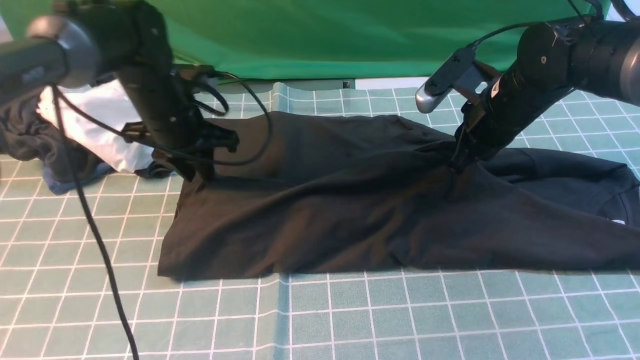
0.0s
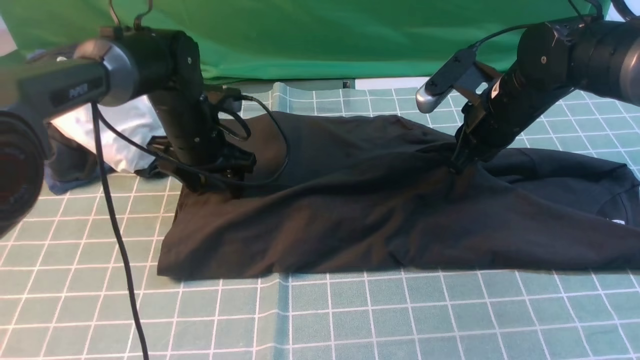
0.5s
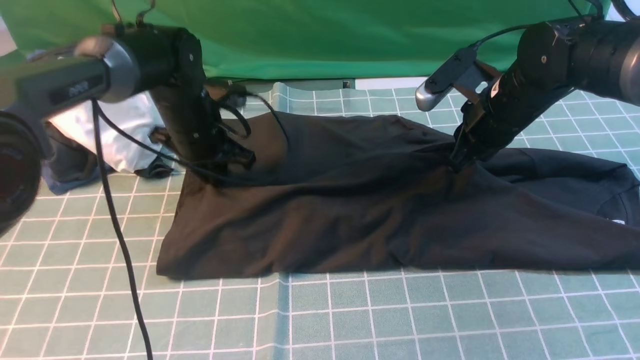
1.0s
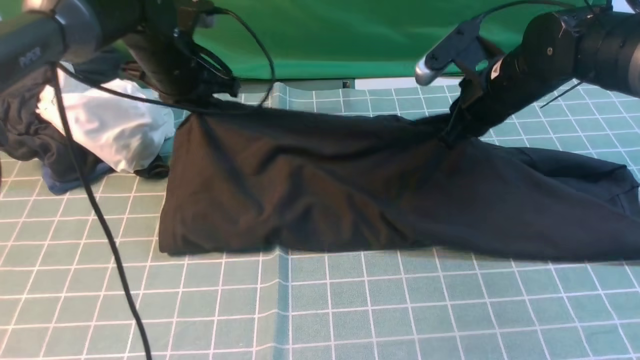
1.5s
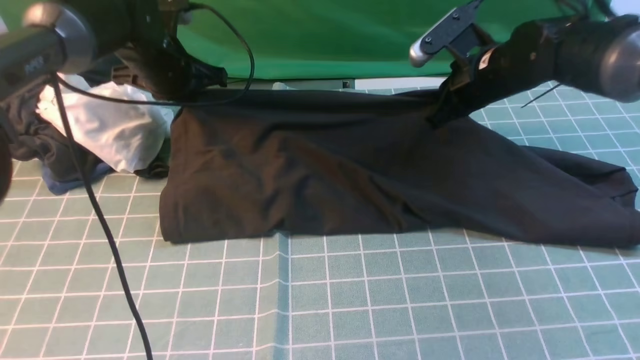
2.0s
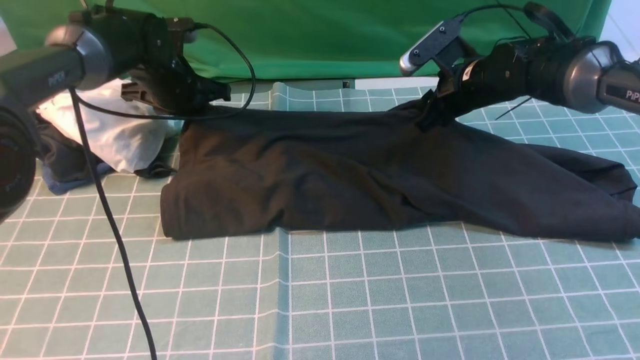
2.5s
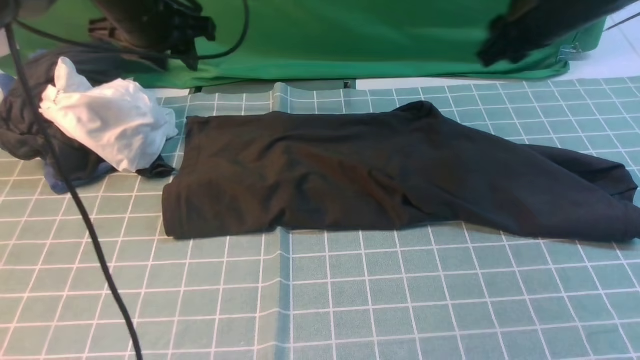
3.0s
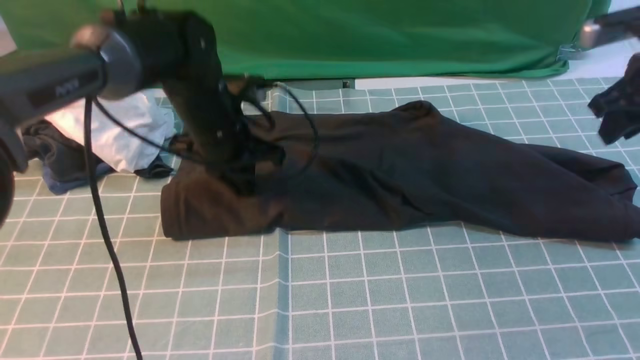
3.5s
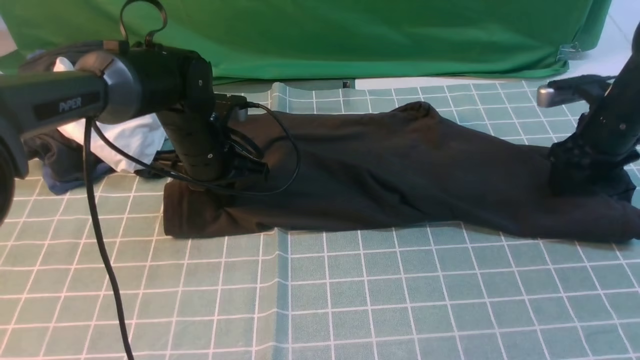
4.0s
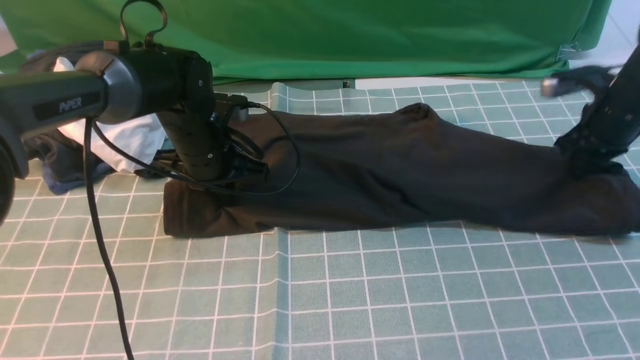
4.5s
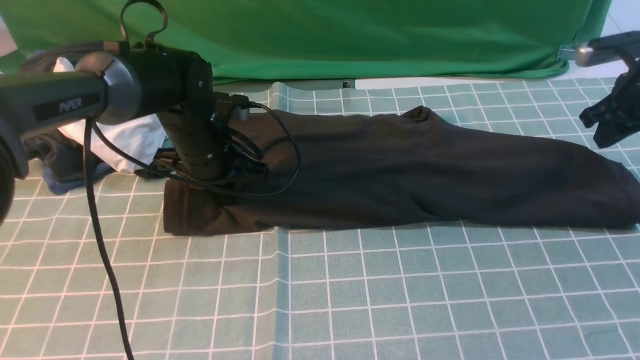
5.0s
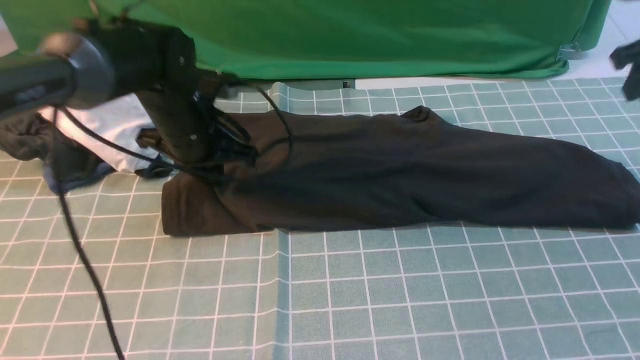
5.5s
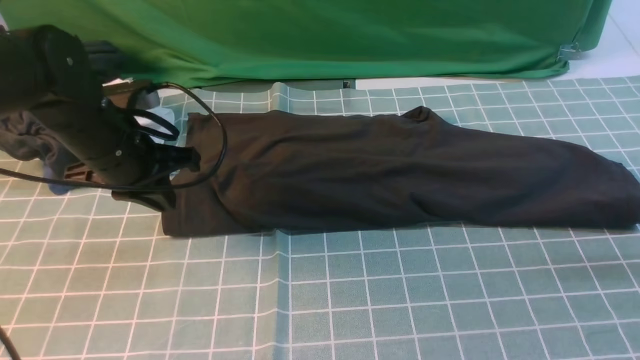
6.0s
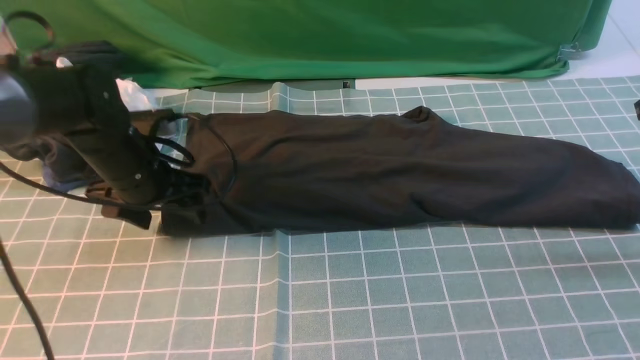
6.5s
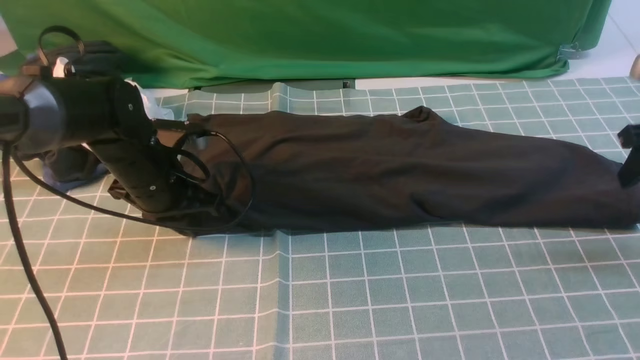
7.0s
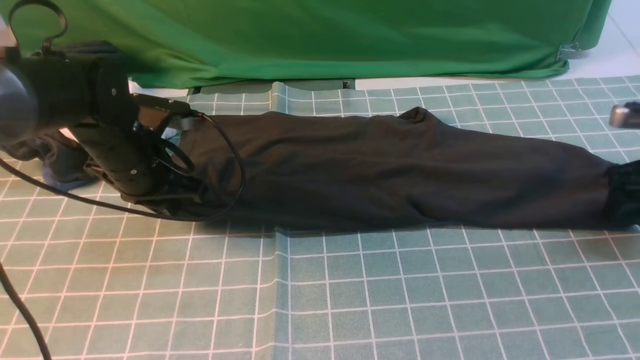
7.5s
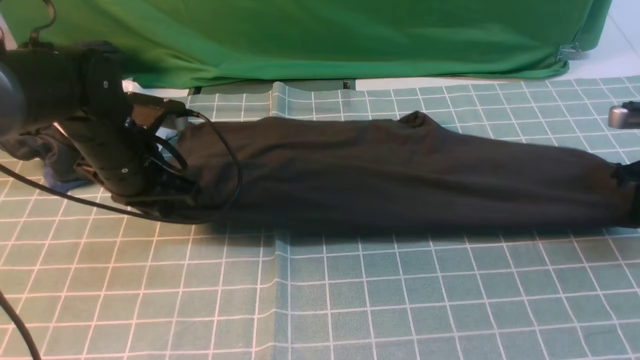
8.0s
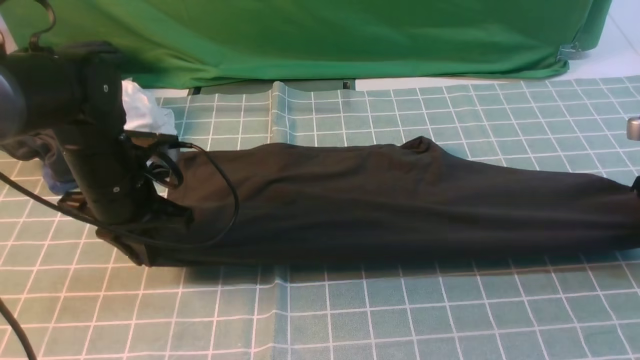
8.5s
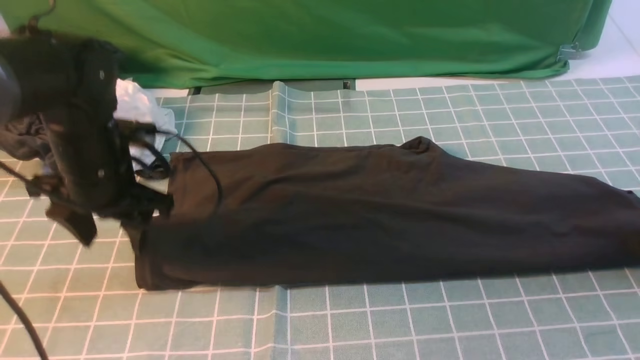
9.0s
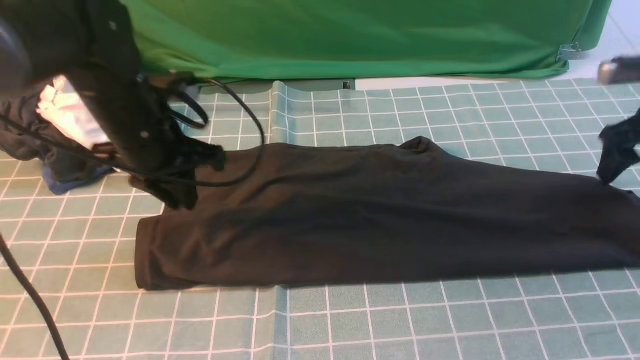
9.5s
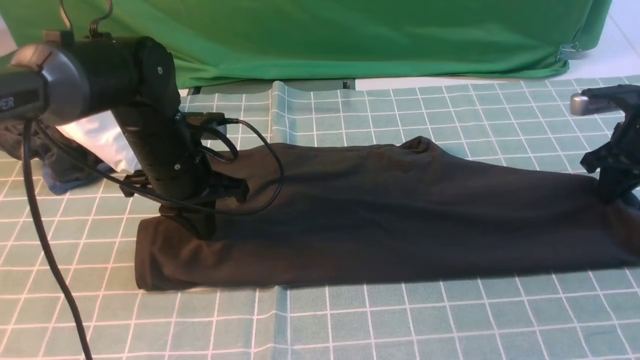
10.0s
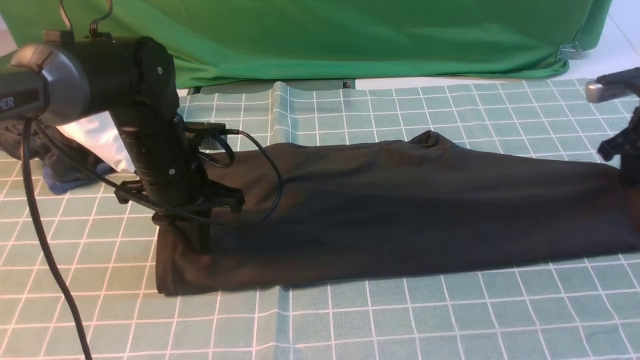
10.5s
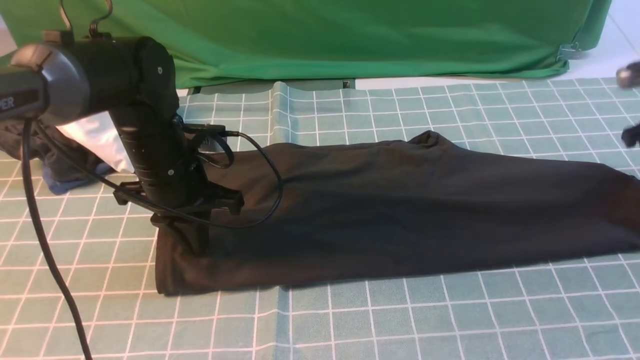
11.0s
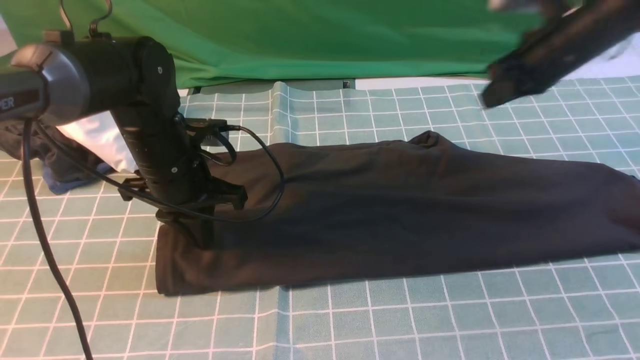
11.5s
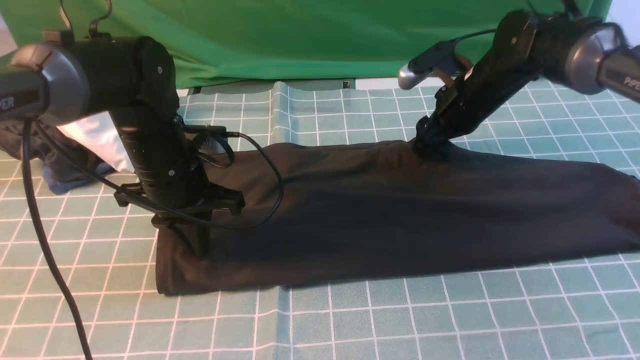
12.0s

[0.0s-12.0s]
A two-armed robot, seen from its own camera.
Step, 0.0s to 3.0s: use both arms to drag the lower edge of the fabric forward and fold it over the upper edge.
0.0s to 2.0s: The grippers both shift forward by approximately 5 cm. The left gripper closes its fingers.
2.0s to 4.0s: The right gripper is displaced to the right by approximately 15 cm, and opens its fingers; the left gripper travels backward and to the right by roughly 10 cm, and opens, then closes again.
4.0s to 6.0s: The right gripper goes about 15 cm upward and backward, and closes its fingers; the left gripper moves backward, to the left and upward, some 10 cm.
6.0s to 8.0s: The right gripper heads downward, covering some 10 cm, and opens and closes again; the left gripper opens, then closes once more.
8.0s to 10.0s: The left gripper opens and closes again. Meanwhile the right gripper changes place by about 5 cm, and opens, then closes again.
10.0s to 12.0s: The right gripper goes roughly 20 cm to the left, and opens up.

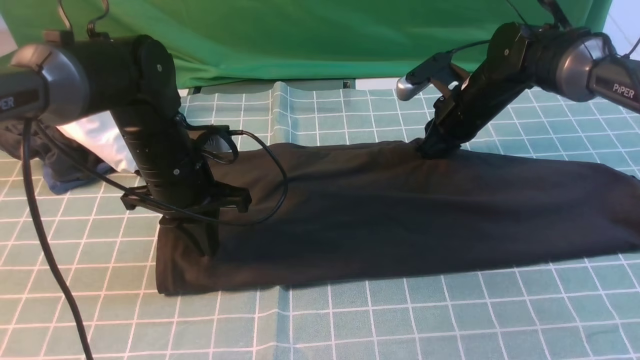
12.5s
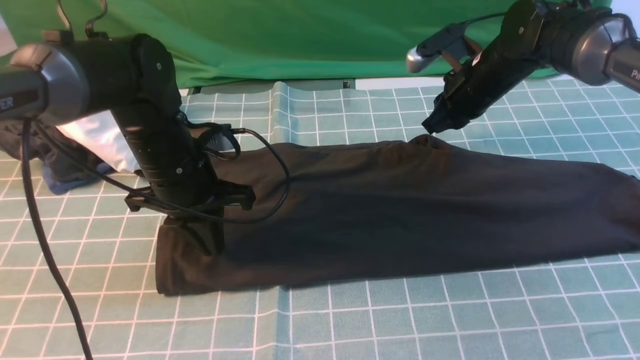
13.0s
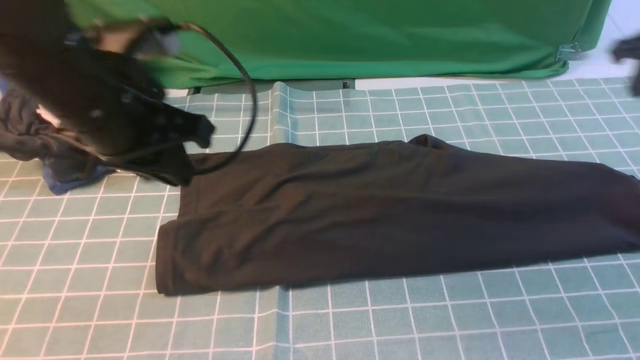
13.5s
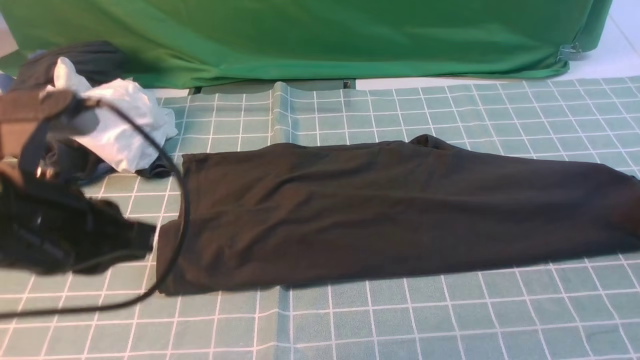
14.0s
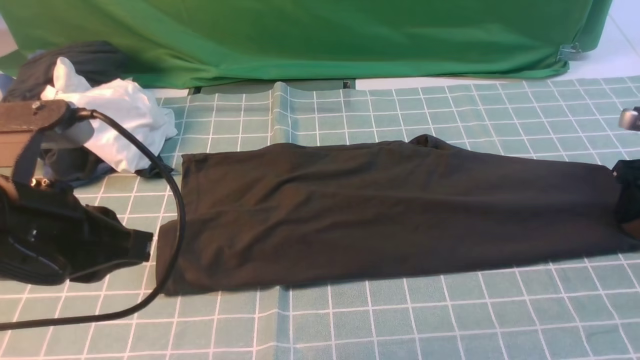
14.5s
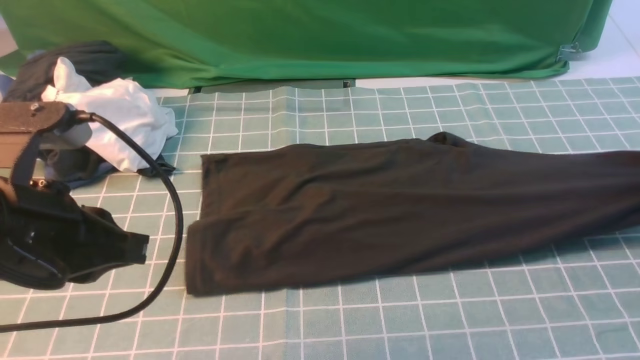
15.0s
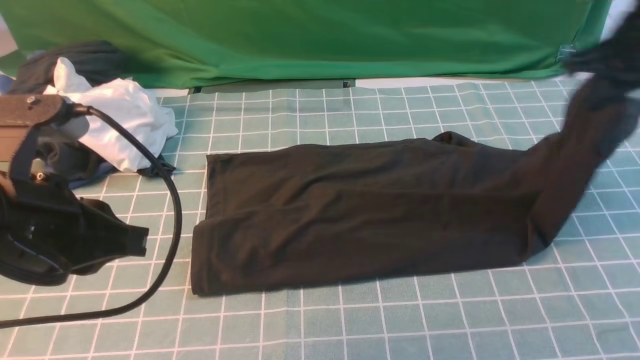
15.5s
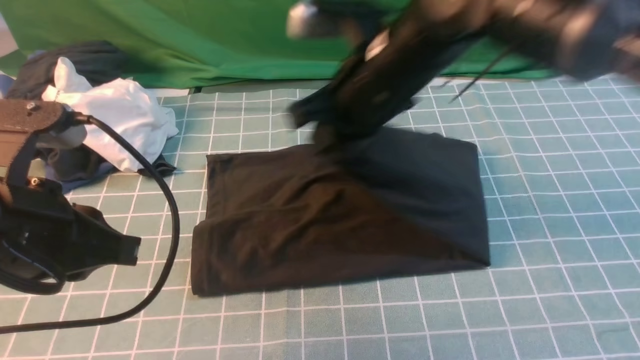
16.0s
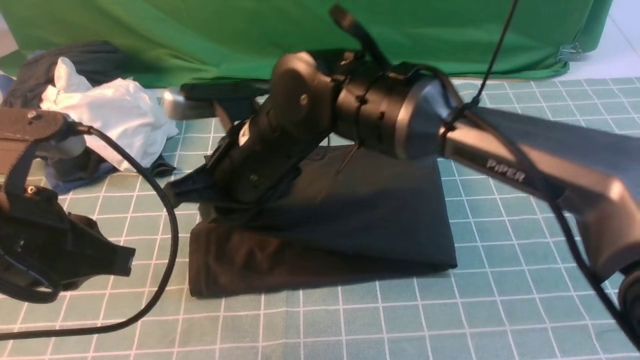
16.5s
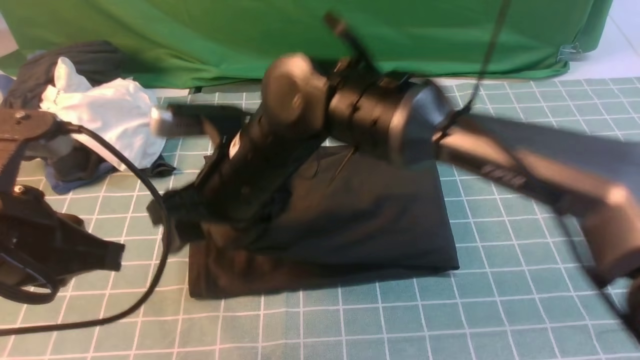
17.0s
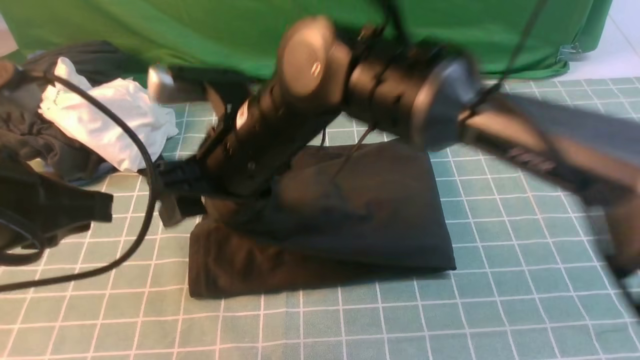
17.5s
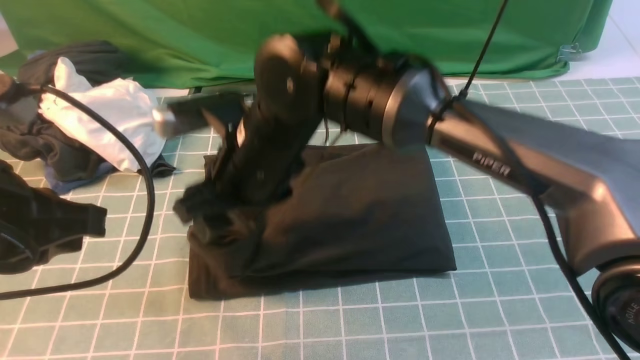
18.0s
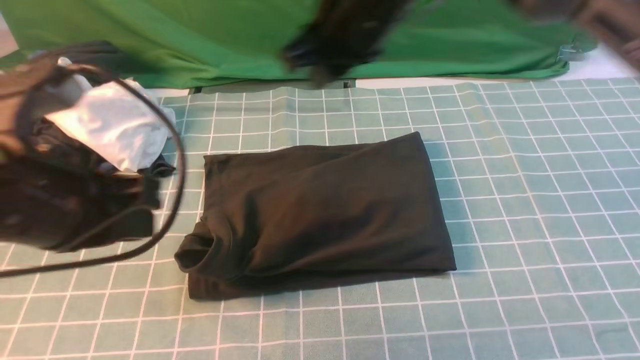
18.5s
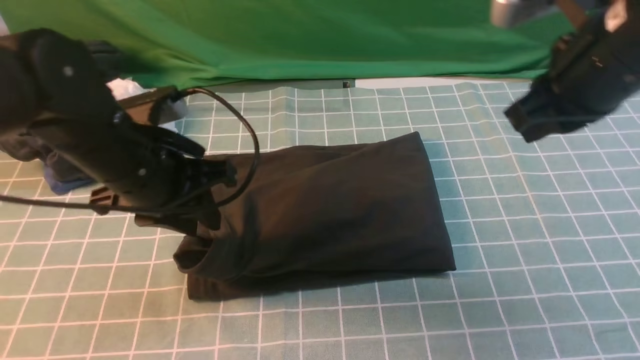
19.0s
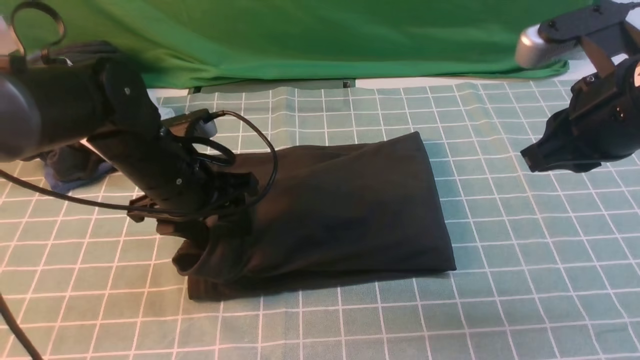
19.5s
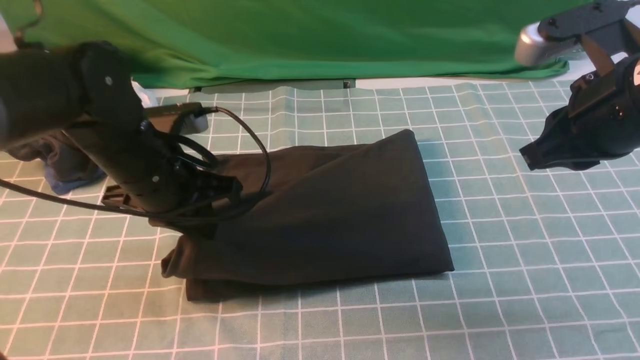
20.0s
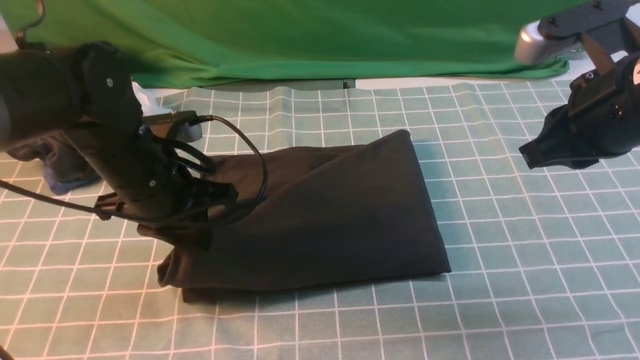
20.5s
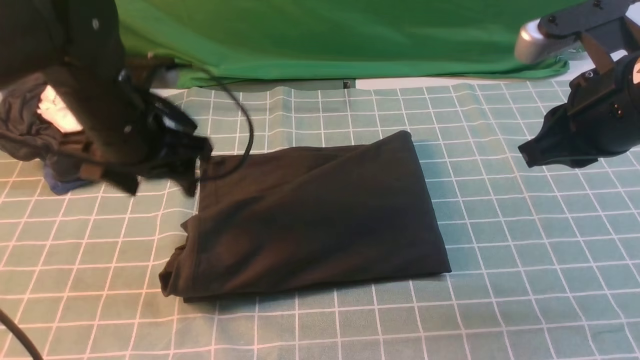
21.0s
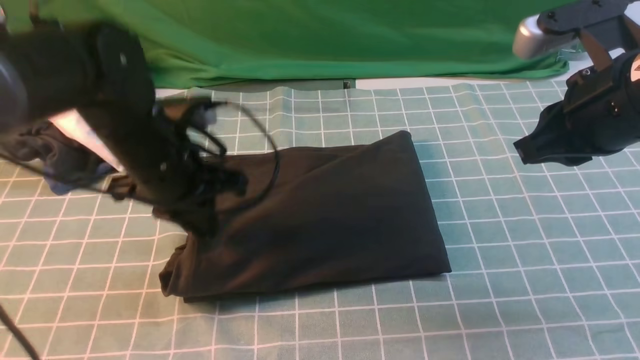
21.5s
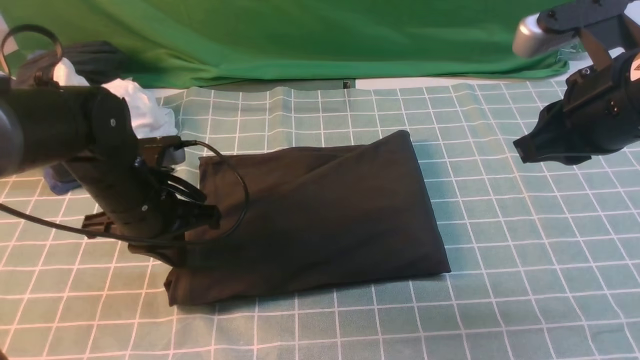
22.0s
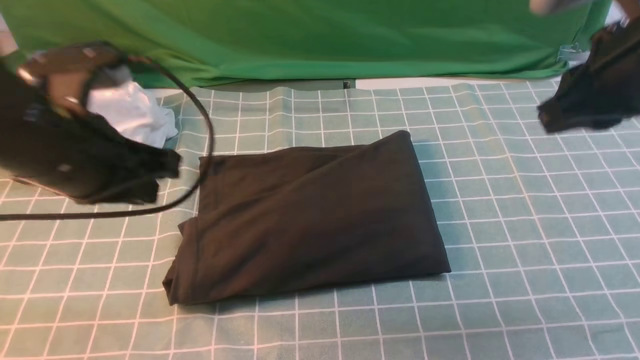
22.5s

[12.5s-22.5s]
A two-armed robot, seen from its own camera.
Step, 12.5s to 14.5s: use the right arm to clamp the right edge of the fabric.
Step, 15.0s to 18.0s: use the right arm to drag the right edge of the fabric to the left and folds it over the left edge.
12.5s to 14.5s: The left gripper shifts approximately 20 cm backward and upward; the right gripper travels to the right by about 25 cm, and opens its fingers.
14.5s to 16.5s: The right gripper moves to the left, roughly 50 cm, and closes.
16.5s to 18.5s: The right gripper goes about 20 cm to the right, upward and forward, and opens, then closes again.
18.5s to 20.5s: The right gripper is displaced to the right and backward by some 20 cm, while the left gripper goes approximately 15 cm forward and downward, and opens its fingers.
20.5s to 22.5s: The right gripper moves upward, approximately 5 cm. The left gripper moves upward and backward, some 10 cm, and closes.
